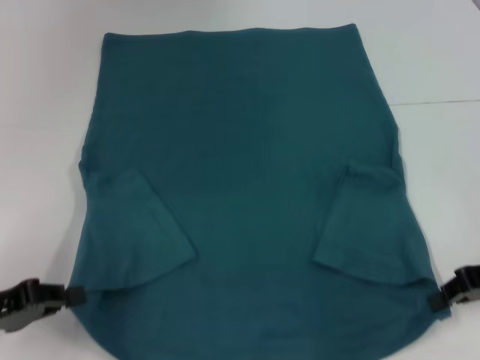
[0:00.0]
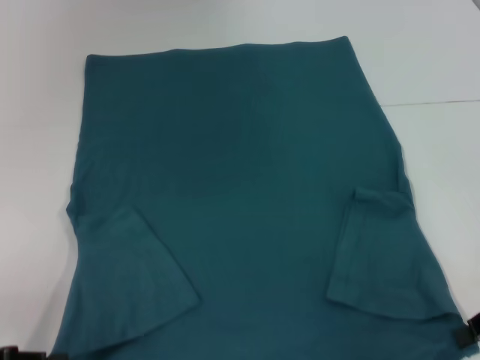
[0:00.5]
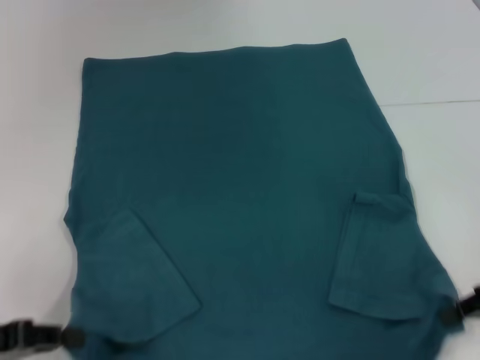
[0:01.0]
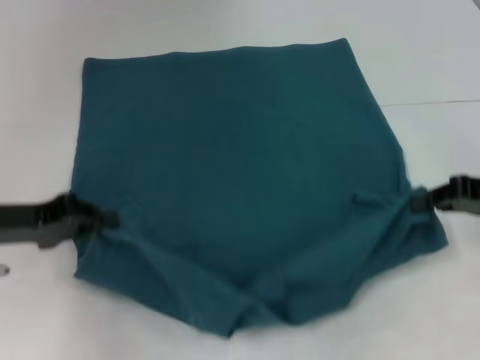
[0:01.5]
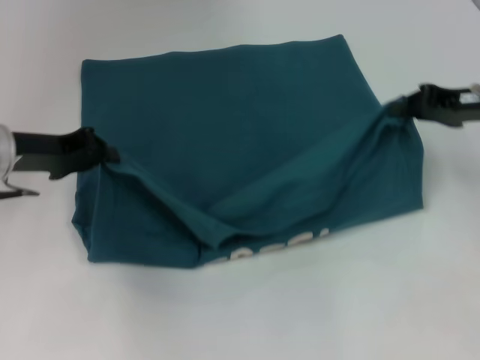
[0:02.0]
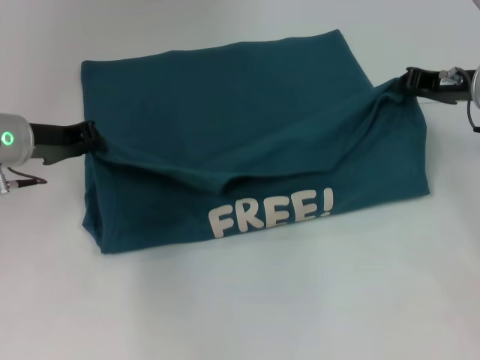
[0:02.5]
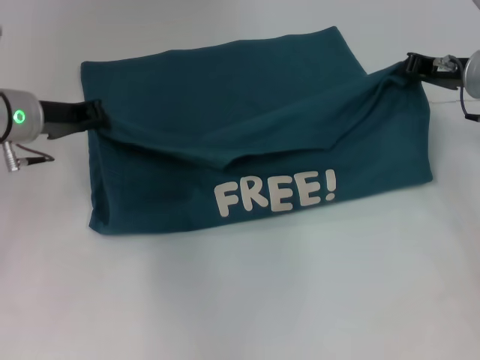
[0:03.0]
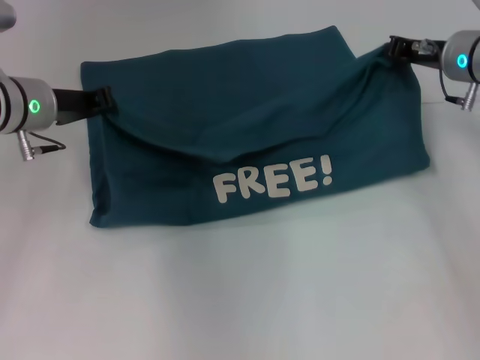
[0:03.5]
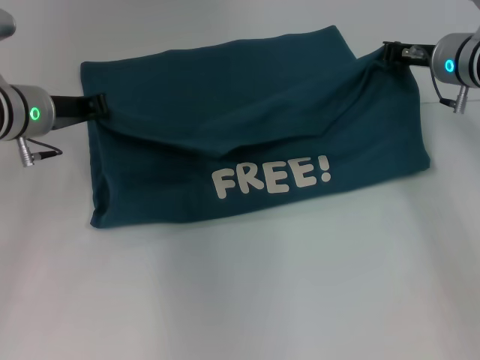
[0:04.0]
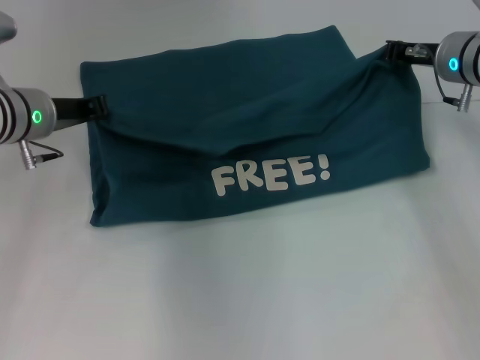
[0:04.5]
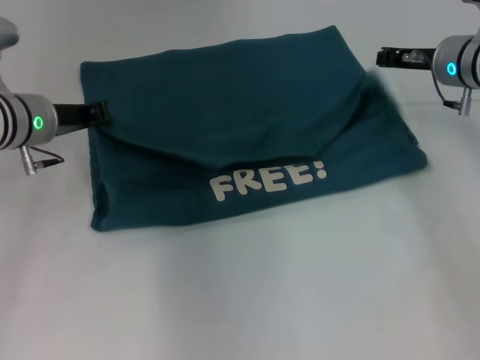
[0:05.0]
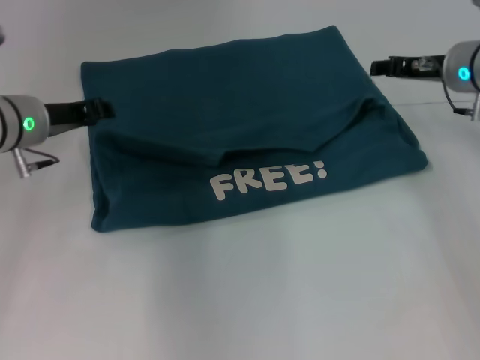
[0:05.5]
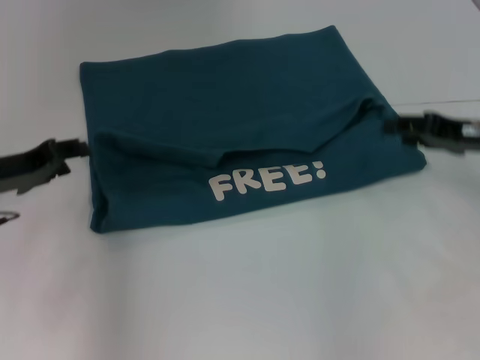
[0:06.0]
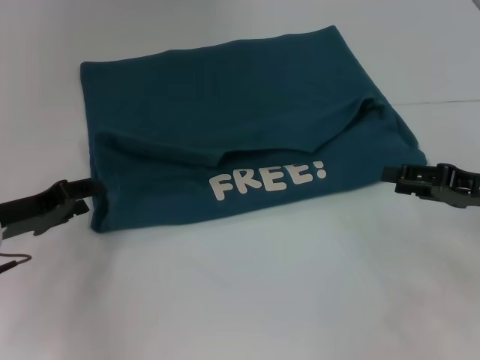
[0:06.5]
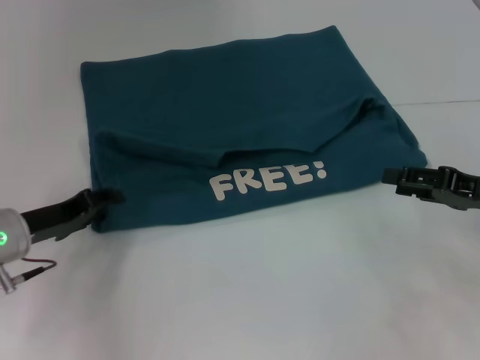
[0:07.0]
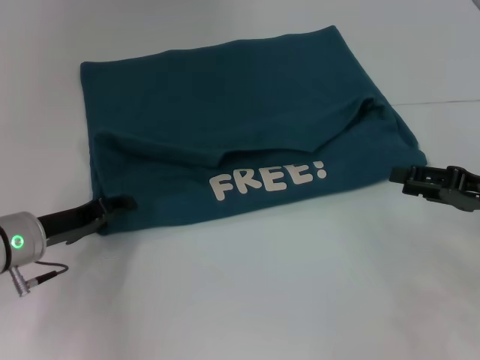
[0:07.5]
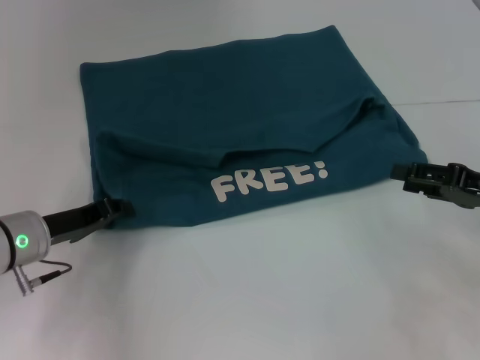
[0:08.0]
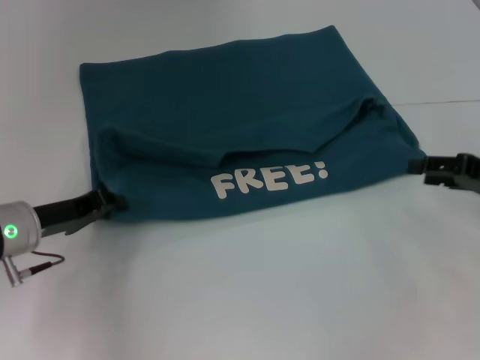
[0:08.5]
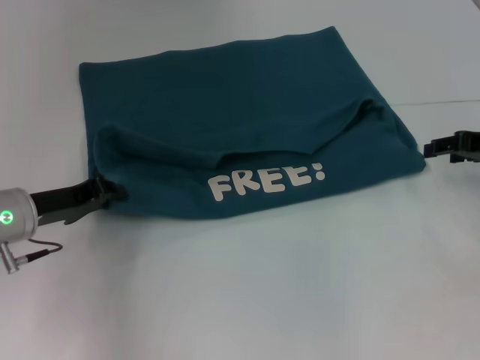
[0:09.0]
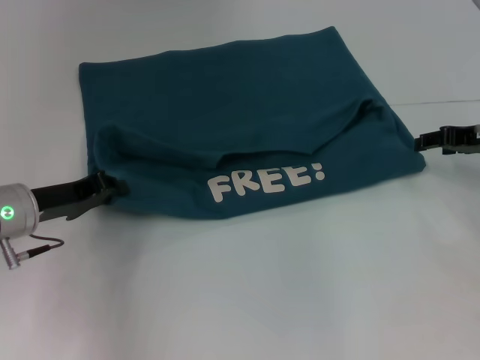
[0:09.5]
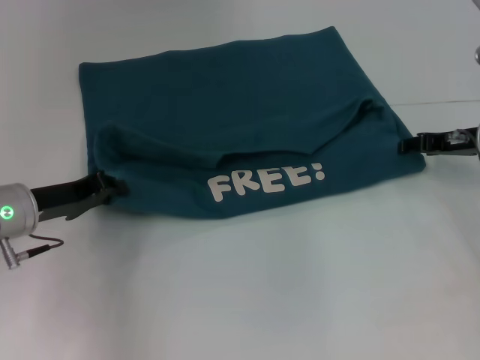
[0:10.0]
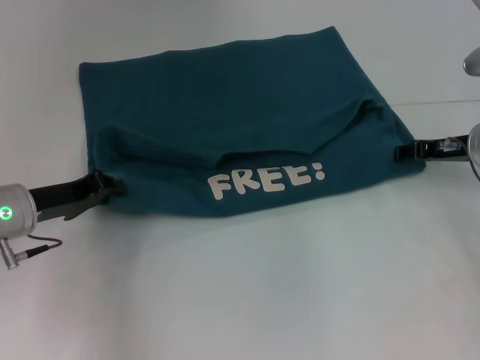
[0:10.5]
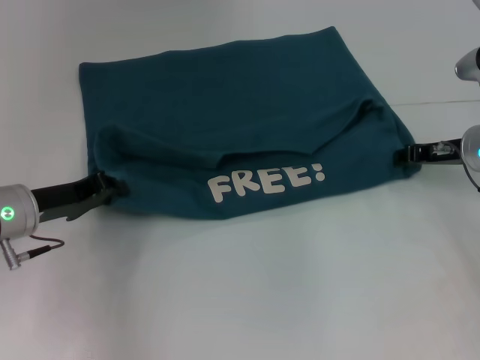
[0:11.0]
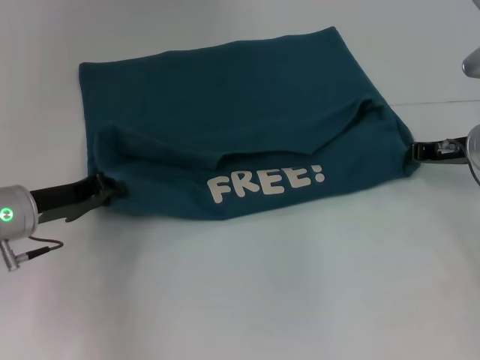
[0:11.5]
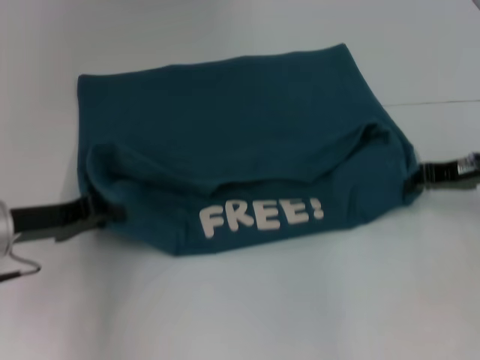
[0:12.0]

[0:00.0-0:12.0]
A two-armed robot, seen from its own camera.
Step, 0.0 to 5.5 s: Fold the clothes to the left.
Step, 0.0 to 5.5 s: Fold the clothes to the right.
0.0 to 2.0 s: The left gripper heads forward, upward and to the right, covering about 15 cm; the right gripper moves forward and upward, approximately 10 cm.
2.0 to 4.0 s: The left gripper changes place by roughly 5 cm; the right gripper moves forward and to the left, roughly 10 cm.
4.0 to 6.0 s: The right gripper moves backward and to the right, roughly 10 cm, and opens its fingers; the left gripper goes approximately 10 cm backward and to the left, and opens up.
6.0 to 8.0 s: The left gripper shifts some 5 cm downward; the right gripper is displaced backward by approximately 5 cm.
8.0 to 10.0 s: The right gripper heads forward, covering about 10 cm; the left gripper closes its fingers.
10.0 to 12.0 s: The right gripper closes its fingers.

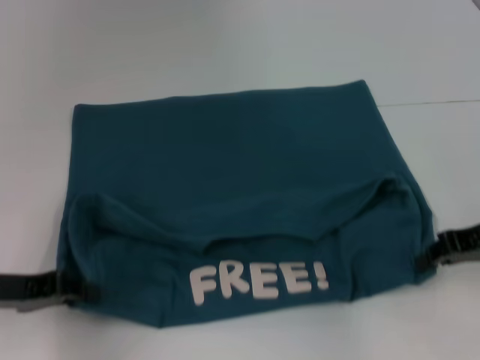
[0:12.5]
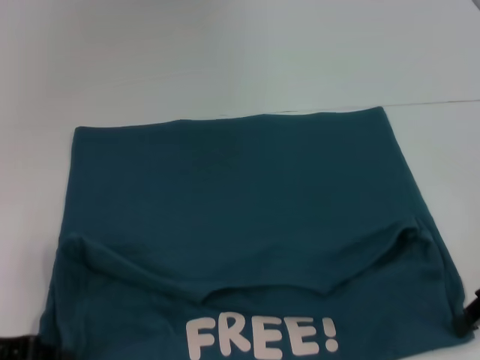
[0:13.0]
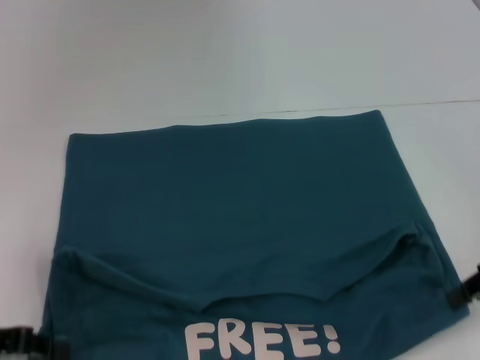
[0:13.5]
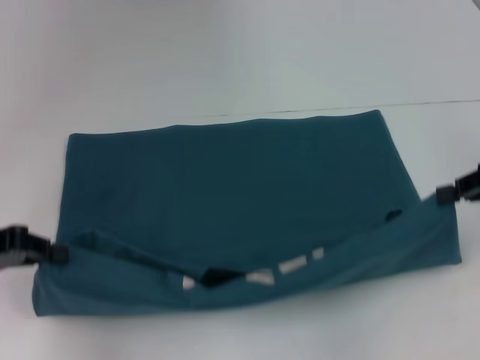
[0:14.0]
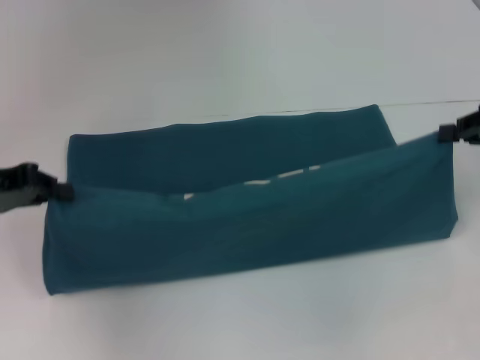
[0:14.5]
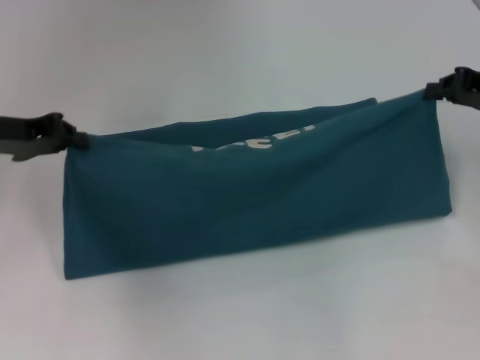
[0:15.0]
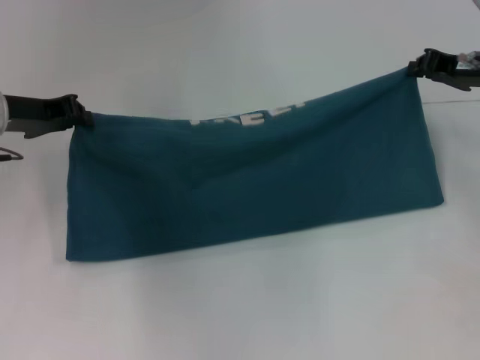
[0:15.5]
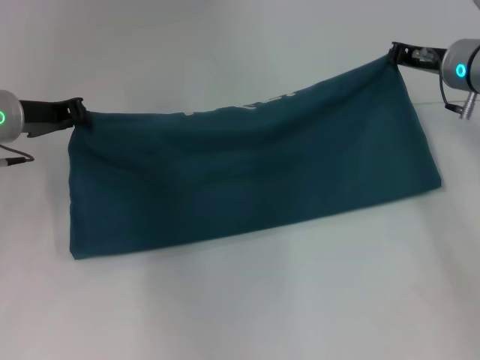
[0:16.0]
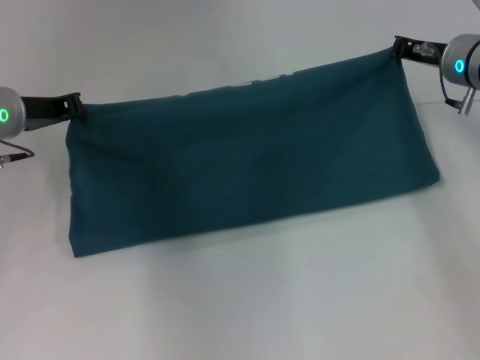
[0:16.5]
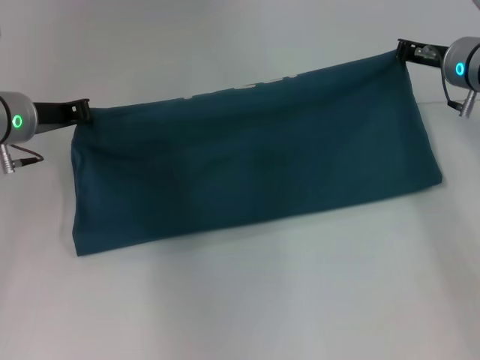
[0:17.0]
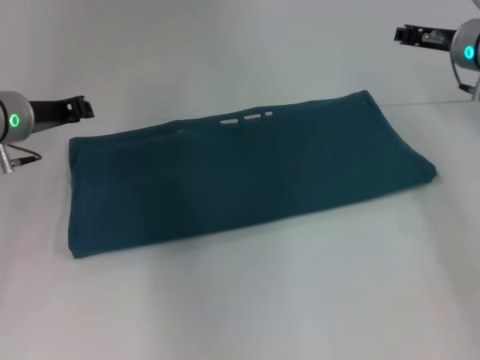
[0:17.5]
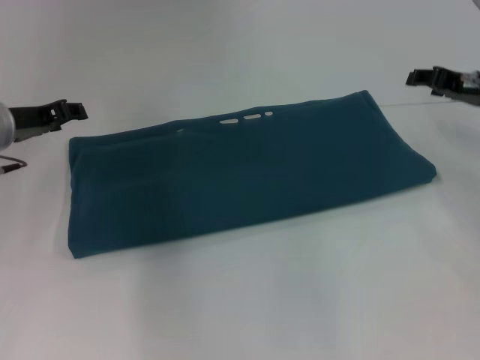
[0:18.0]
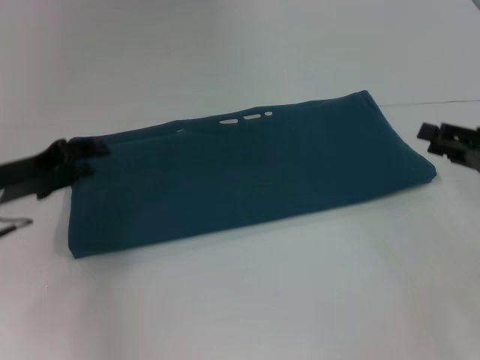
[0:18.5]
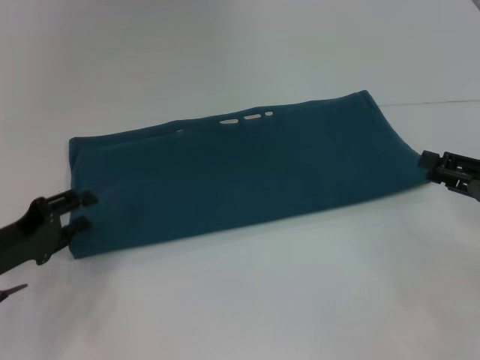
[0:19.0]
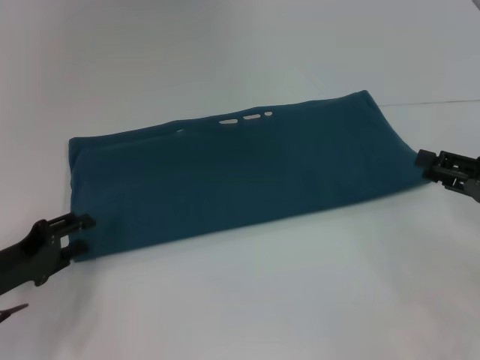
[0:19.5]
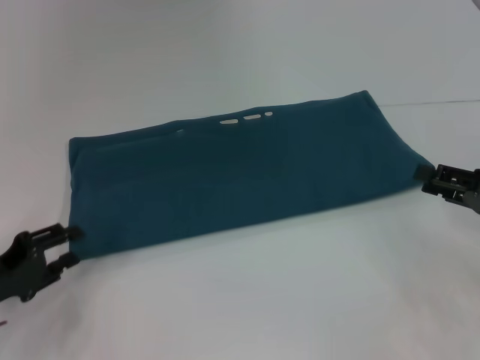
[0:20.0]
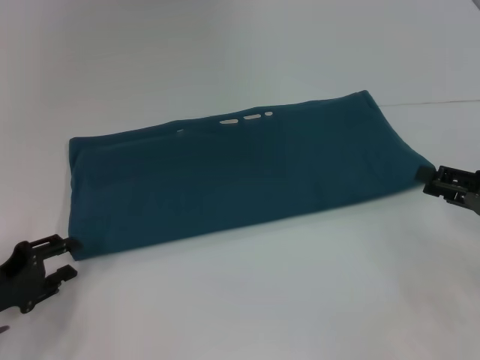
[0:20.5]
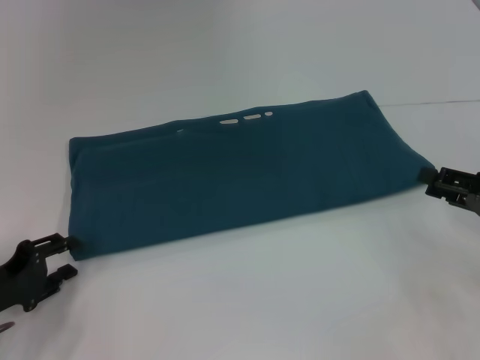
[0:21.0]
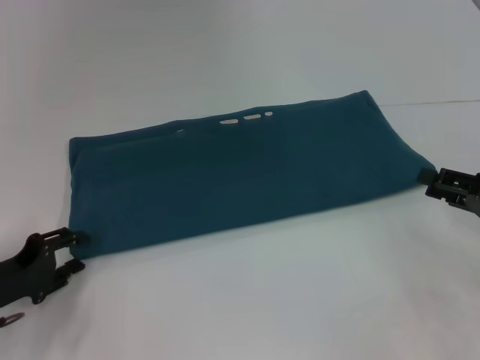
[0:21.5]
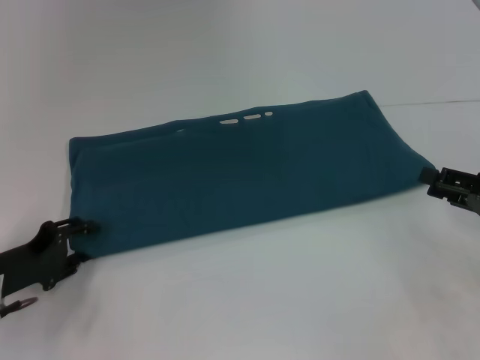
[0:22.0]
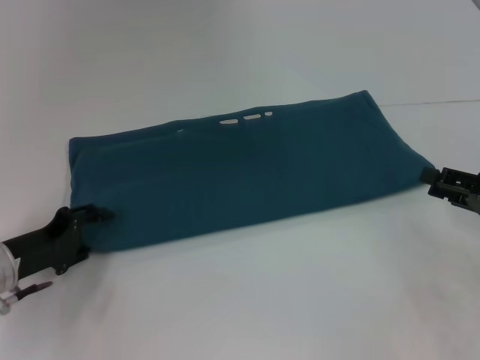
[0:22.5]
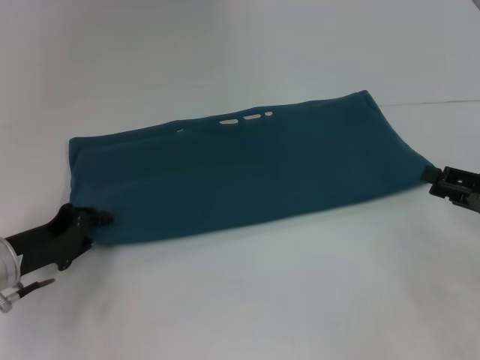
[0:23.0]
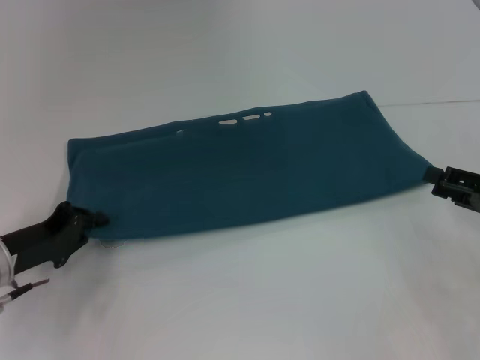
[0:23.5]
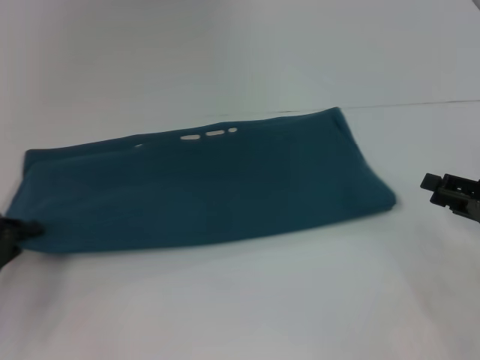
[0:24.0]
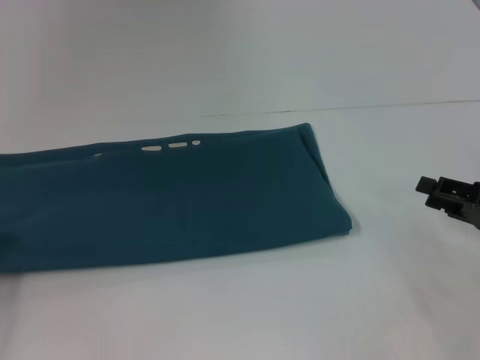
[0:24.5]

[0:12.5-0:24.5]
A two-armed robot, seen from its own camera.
Step, 13.0 to 17.5 s: Fold the clothes to the right.
12.5 to 14.5 s: The left gripper goes about 10 cm upward and forward, while the right gripper is displaced upward by some 5 cm.
14.5 to 16.5 s: The left gripper moves forward and to the right, some 10 cm, while the right gripper heads forward and to the left, covering approximately 15 cm.
16.5 to 18.5 s: The right gripper goes approximately 20 cm backward and to the right, and opens its fingers, while the left gripper goes approximately 10 cm backward, and opens its fingers.
18.5 to 20.5 s: The left gripper moves backward and downward, roughly 10 cm.
20.5 to 22.5 s: The left gripper moves forward, some 5 cm.
22.5 to 24.5 s: The left gripper travels to the left by roughly 10 cm, and closes.

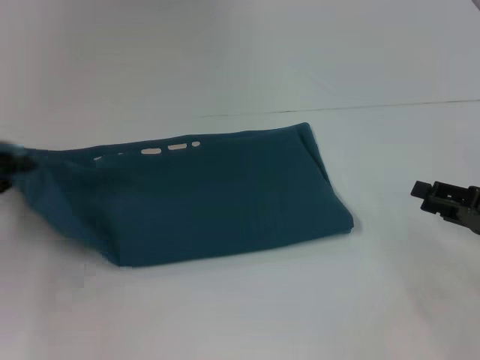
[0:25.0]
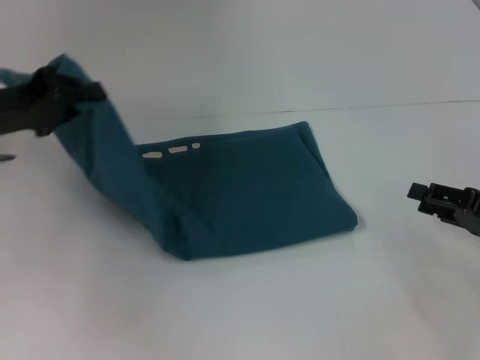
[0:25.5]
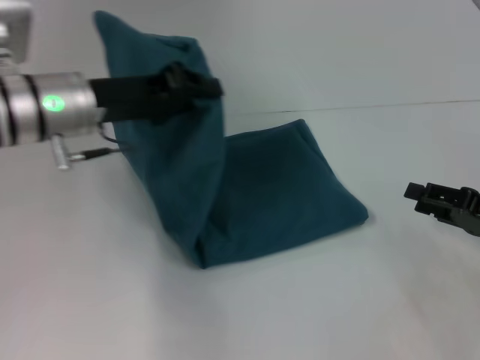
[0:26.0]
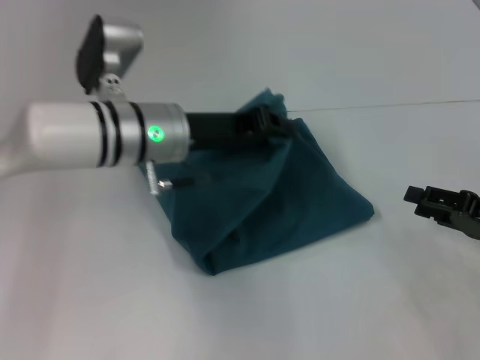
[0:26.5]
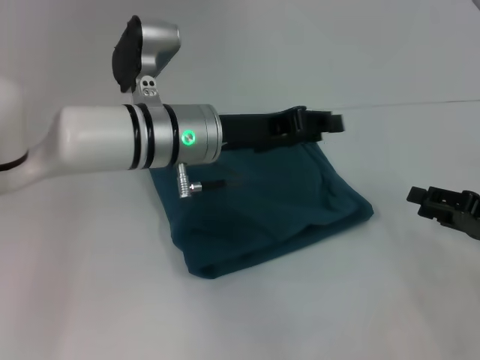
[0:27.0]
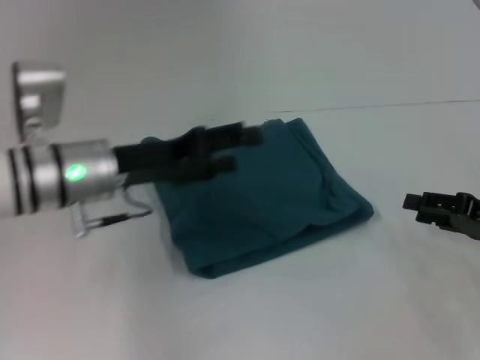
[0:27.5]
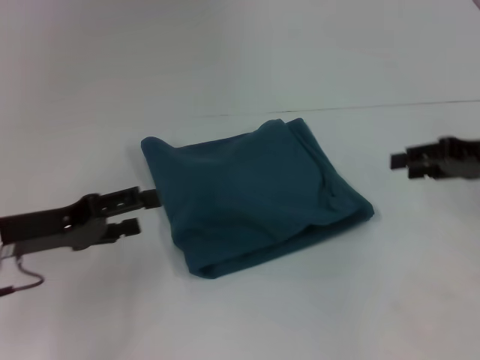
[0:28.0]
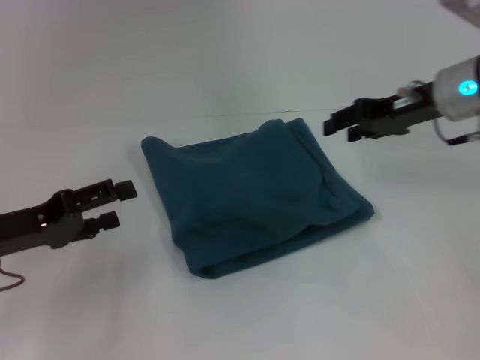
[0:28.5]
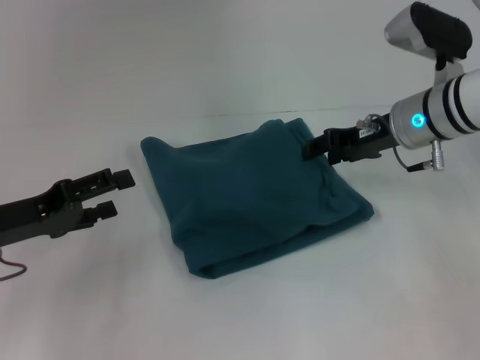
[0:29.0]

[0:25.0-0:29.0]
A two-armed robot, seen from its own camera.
Step, 25.0 to 27.0 s: Fold the clothes to the left.
25.0 to 27.0 s: The left gripper goes some 30 cm to the right.
27.0 to 29.0 s: The left gripper shifts about 20 cm to the left, and opens its fingers. The right gripper travels forward, to the left and upward by approximately 20 cm.
